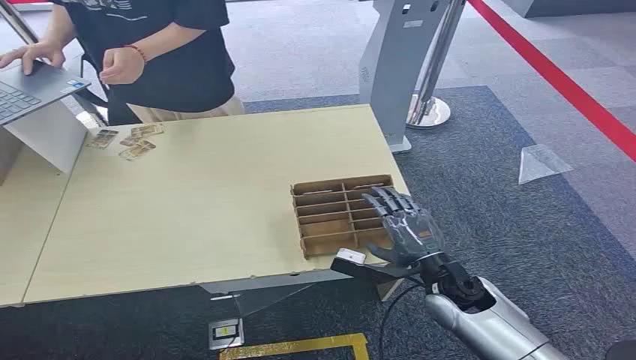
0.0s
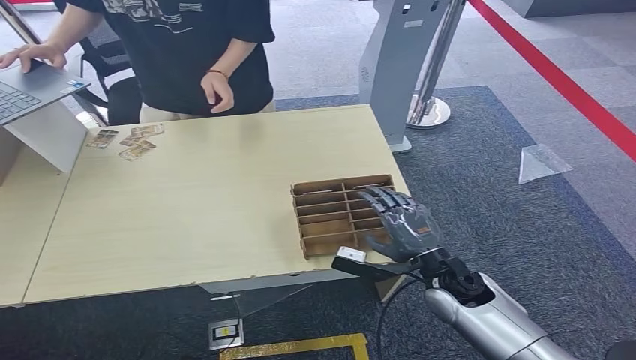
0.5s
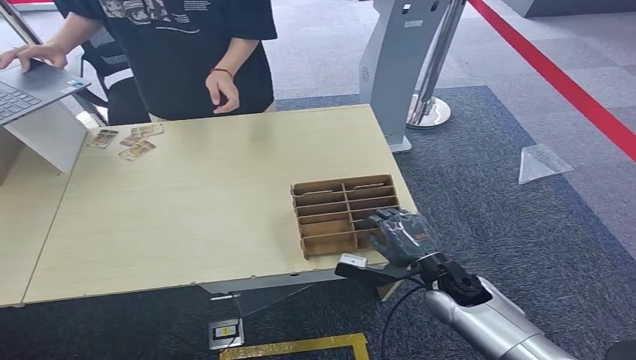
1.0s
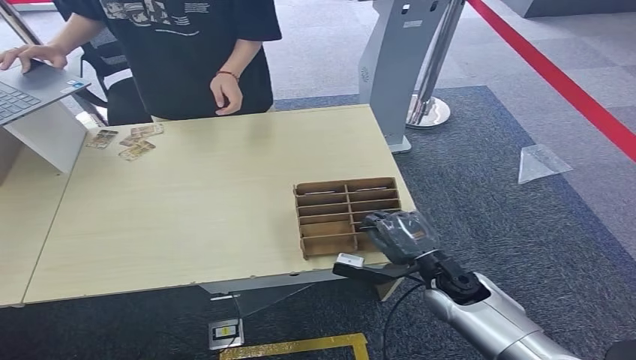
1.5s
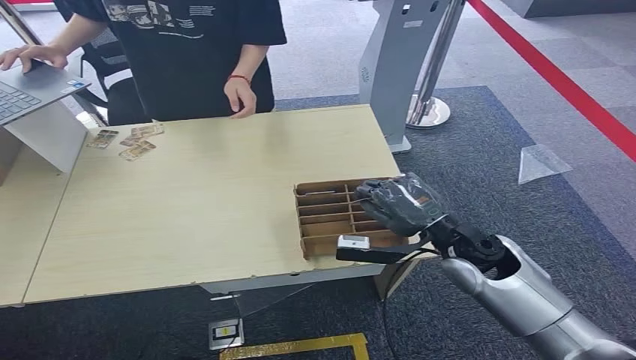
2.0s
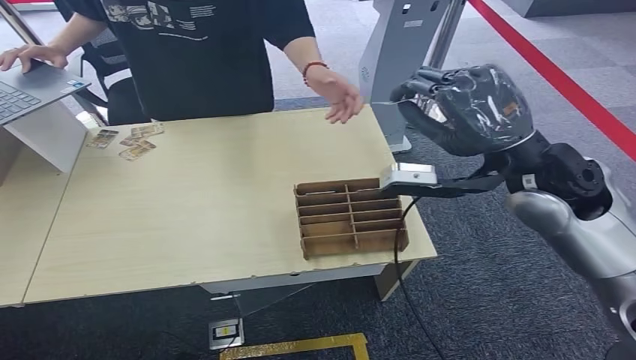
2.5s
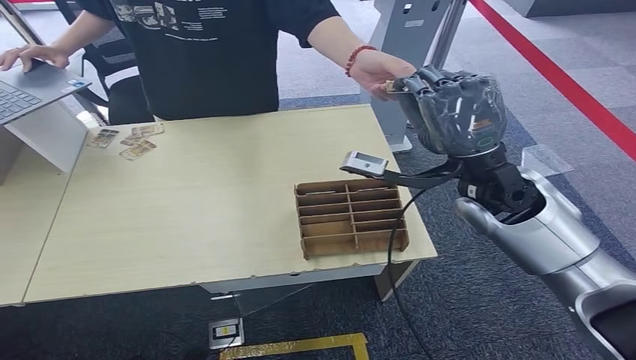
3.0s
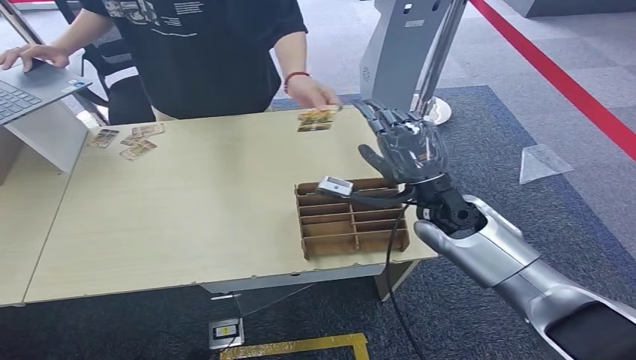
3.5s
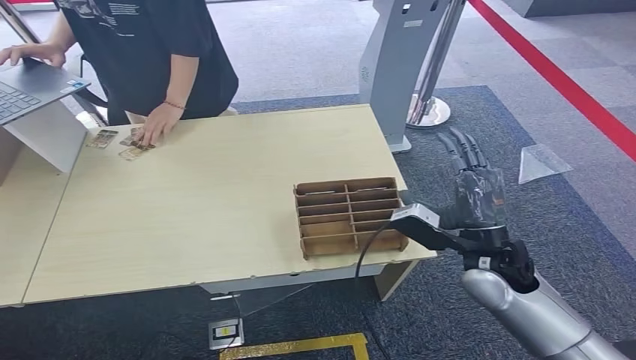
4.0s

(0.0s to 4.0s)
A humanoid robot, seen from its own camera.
Step, 0.0s - 2.0s: Pick up the room card from the card holder.
Step, 2.5s - 4.0s: Hand the room card to the target.
2.0s - 4.0s: The right hand reaches about 20 cm upward, then returns.
